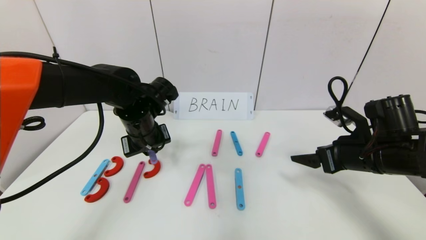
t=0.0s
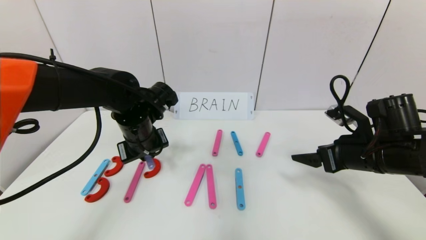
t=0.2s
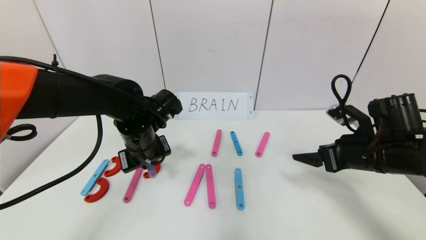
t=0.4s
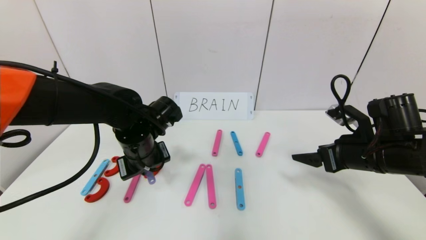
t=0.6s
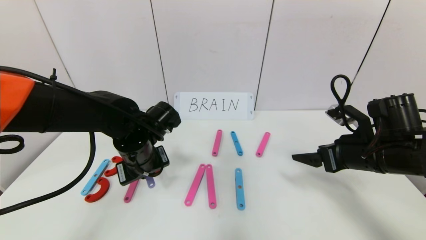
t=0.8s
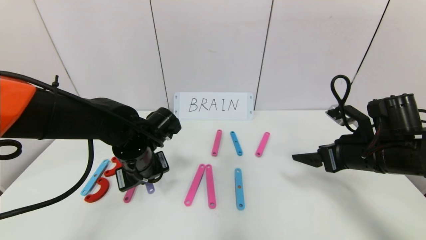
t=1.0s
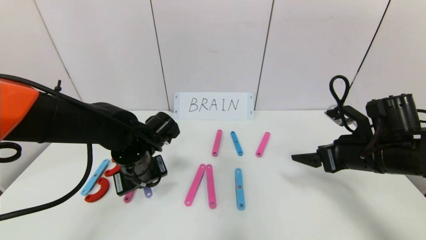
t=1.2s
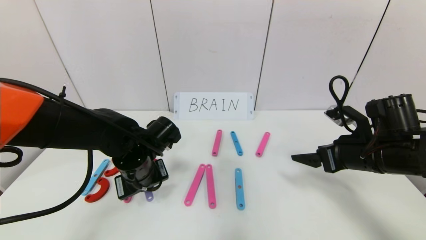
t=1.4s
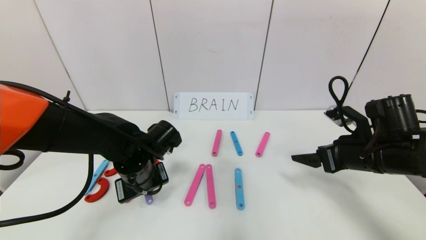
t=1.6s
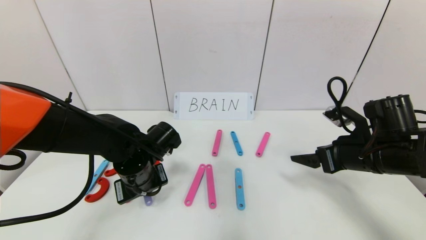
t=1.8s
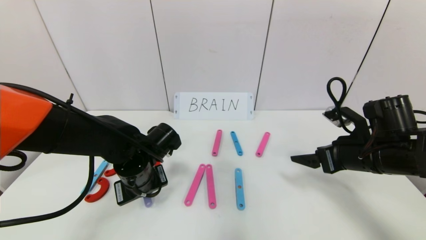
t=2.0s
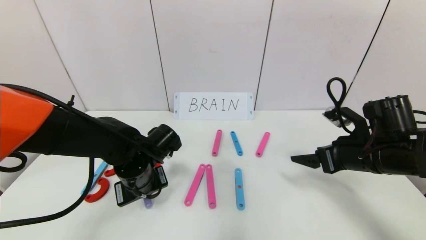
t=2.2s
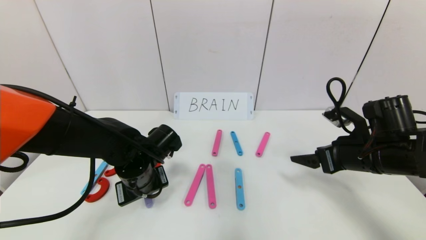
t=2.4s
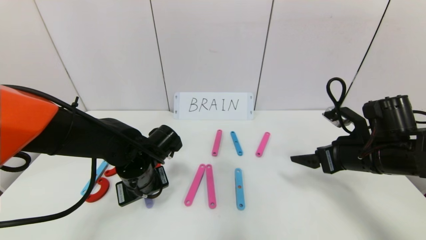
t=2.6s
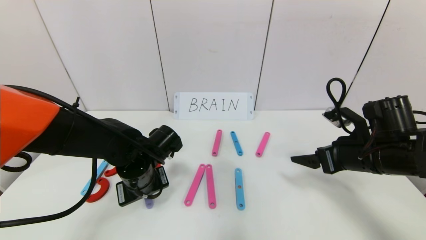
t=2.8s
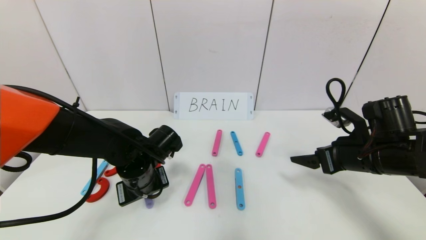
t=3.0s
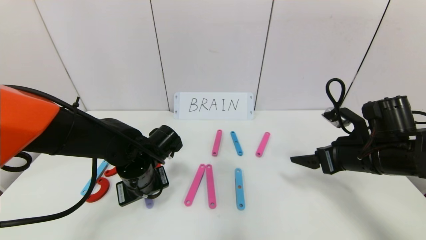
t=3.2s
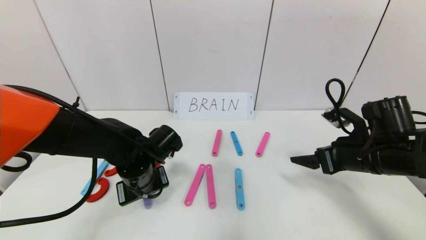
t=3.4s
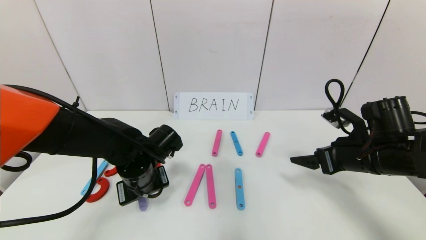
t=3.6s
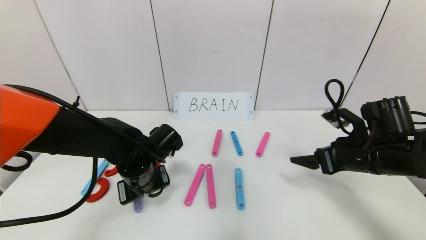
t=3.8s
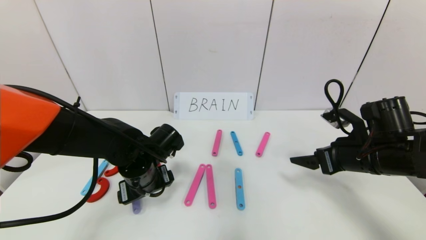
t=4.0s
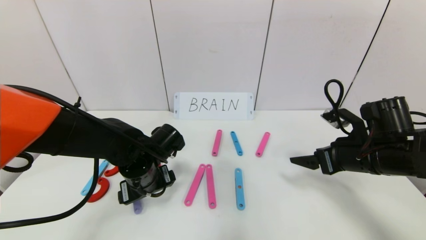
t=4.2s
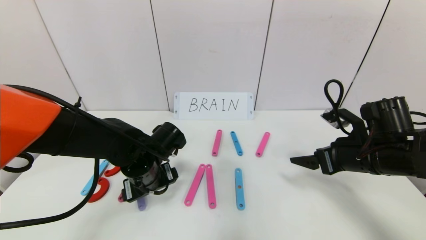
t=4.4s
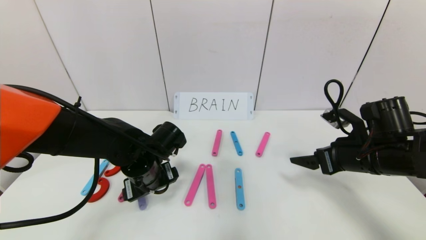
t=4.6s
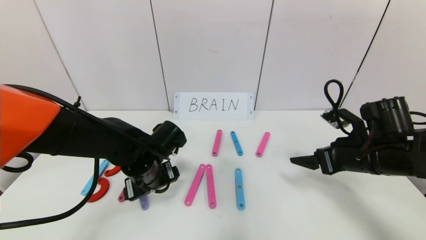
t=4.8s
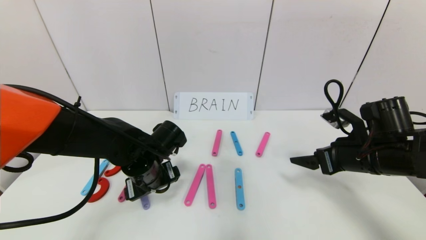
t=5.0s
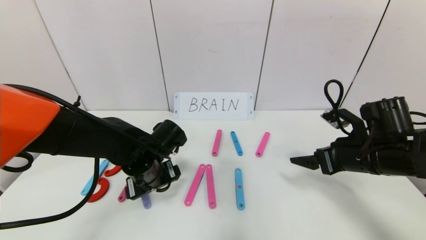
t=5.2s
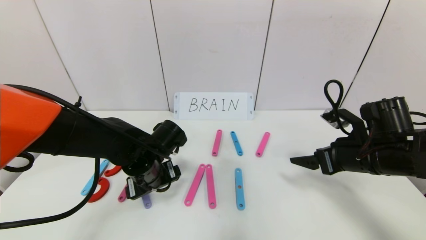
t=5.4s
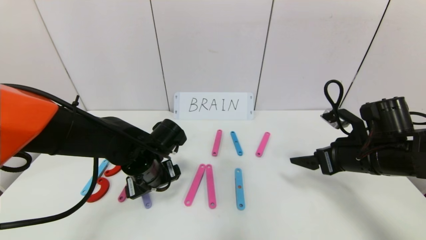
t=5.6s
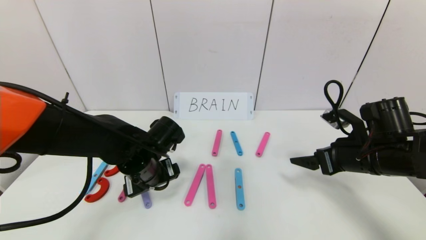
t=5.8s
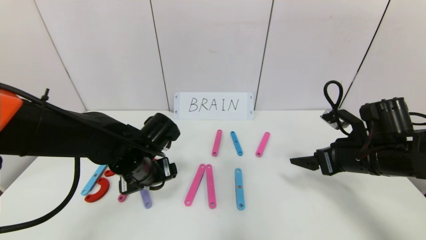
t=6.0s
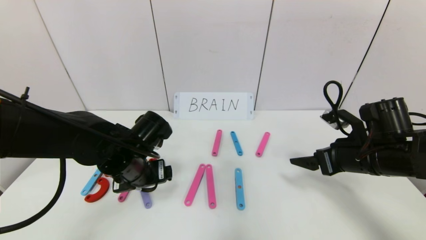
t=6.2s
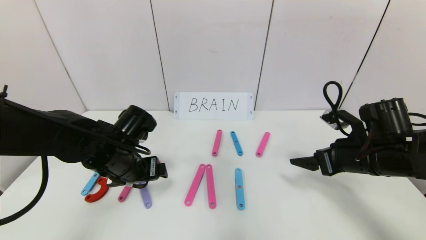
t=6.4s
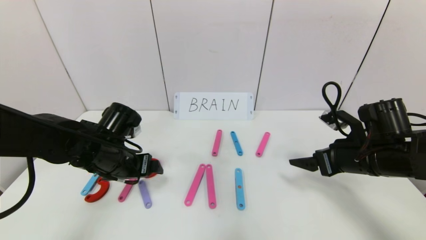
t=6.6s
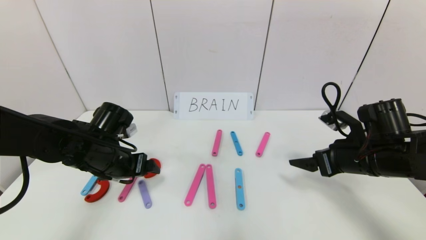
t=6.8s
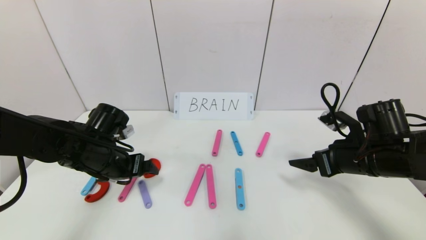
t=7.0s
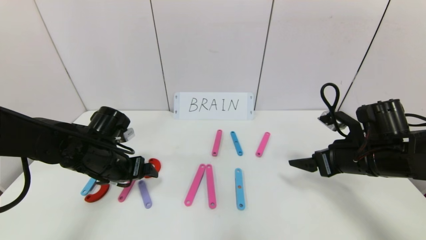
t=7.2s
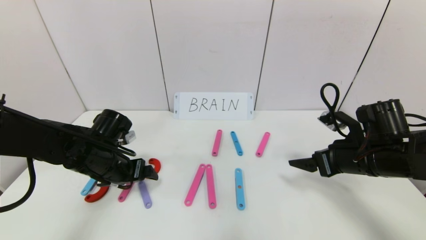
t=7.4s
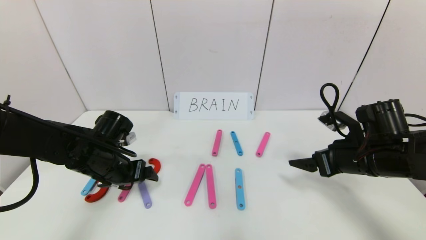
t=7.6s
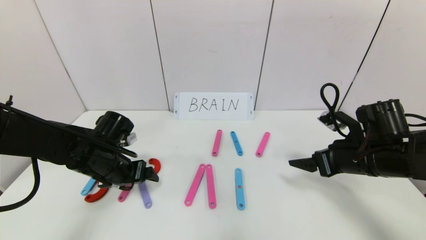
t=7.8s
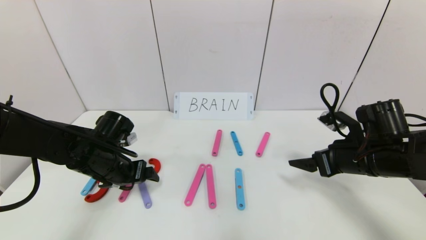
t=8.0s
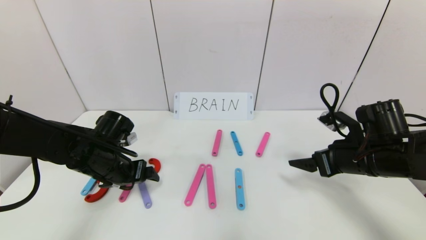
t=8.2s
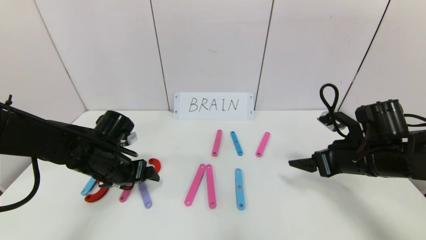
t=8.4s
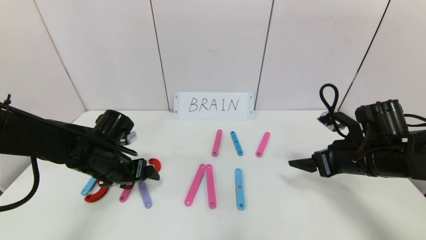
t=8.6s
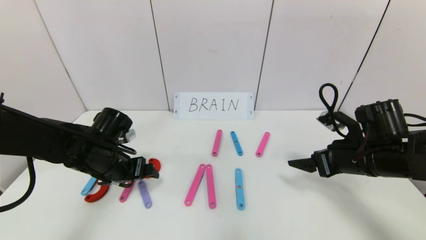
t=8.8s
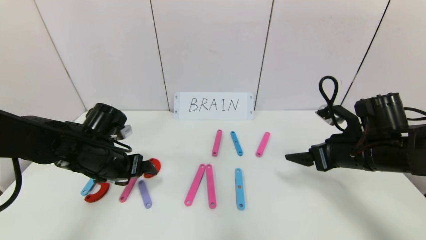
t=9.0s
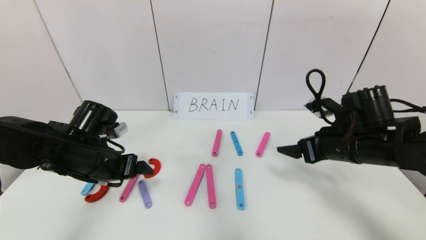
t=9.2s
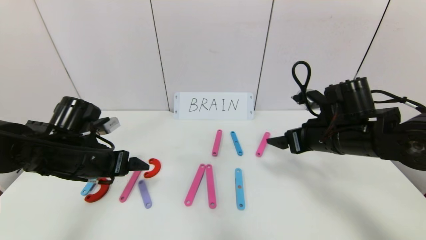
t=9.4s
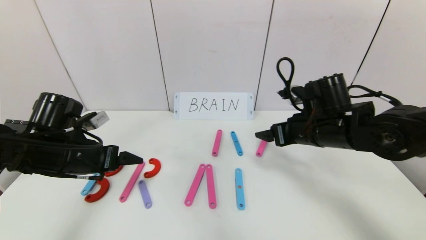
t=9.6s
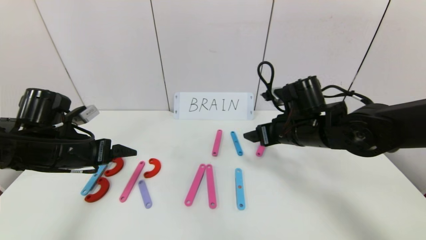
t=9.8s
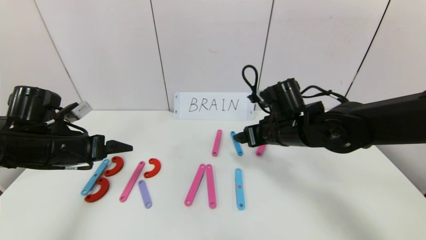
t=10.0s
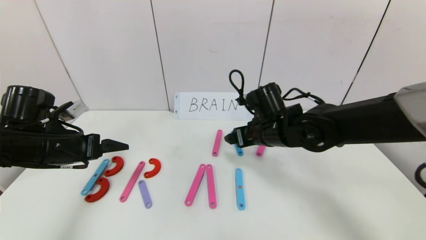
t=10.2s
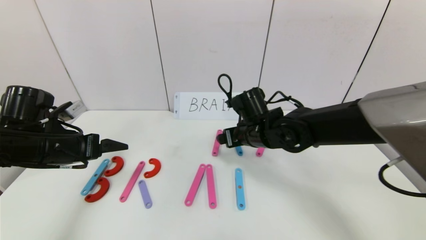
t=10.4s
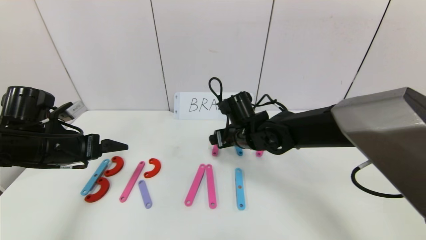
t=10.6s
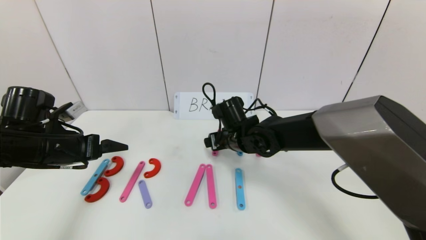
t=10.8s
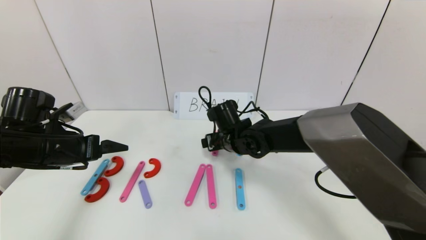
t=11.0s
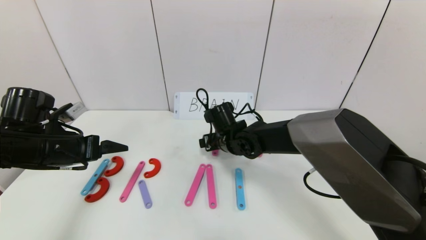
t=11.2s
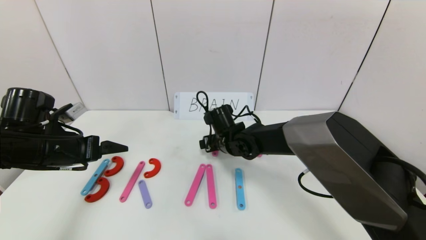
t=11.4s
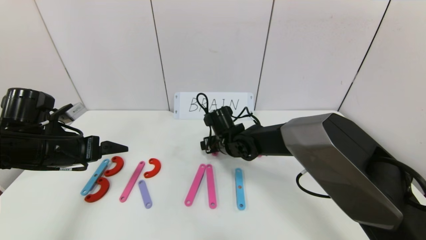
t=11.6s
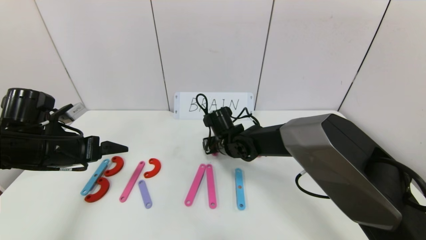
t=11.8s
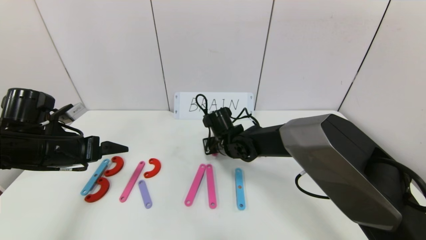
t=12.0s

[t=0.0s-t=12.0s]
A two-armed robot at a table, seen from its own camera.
Task of the whole recording: rearrange the word baai as brain.
Step, t=0.0s to t=9.0s: Place the character R between first character B and third character A.
t=0.0s to t=1.6s: The left gripper moves downward and backward, about 10 cm.
t=1.6s to t=3.0s: Both grippers stay about where they are.
t=3.0s to t=4.4s: The left gripper opens its fingers.
t=4.4s to t=6.0s: The grippers stay close to where they were, moving slightly.
t=6.0s to t=7.6s: The left gripper moves to the left, some 10 cm.
t=7.6s to t=9.0s: The grippers move only a little.
t=9.0s to t=10.4s: The right gripper is displaced to the left and forward by approximately 20 cm. Meanwhile the left gripper is displaced to the left by about 10 cm.
t=10.4s to t=12.0s: The right gripper travels downward and to the left by some 10 cm, and closes up.

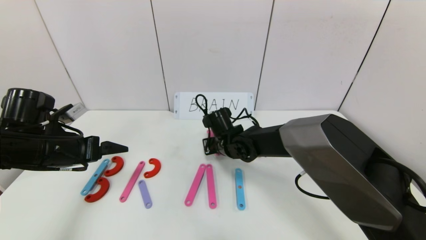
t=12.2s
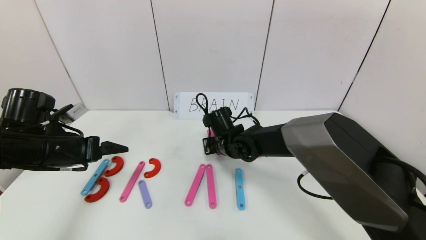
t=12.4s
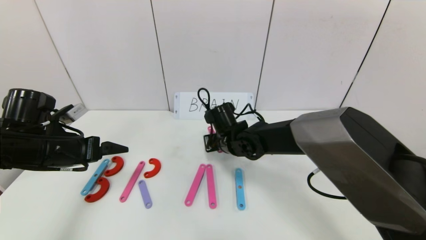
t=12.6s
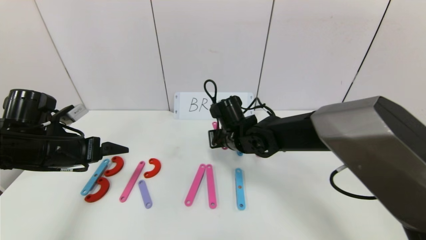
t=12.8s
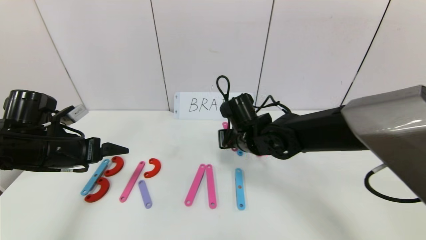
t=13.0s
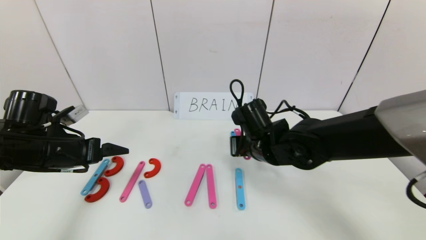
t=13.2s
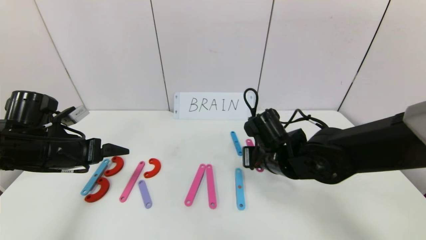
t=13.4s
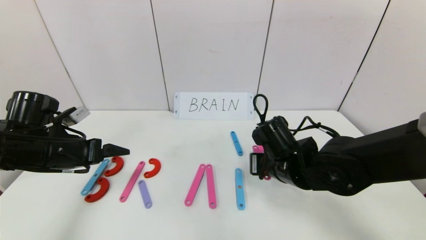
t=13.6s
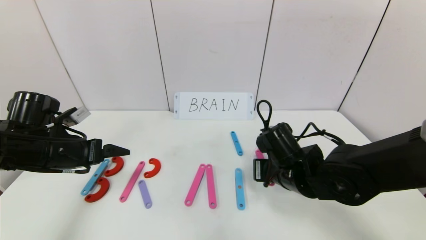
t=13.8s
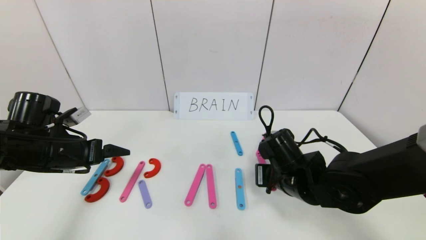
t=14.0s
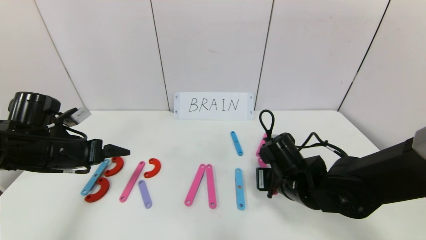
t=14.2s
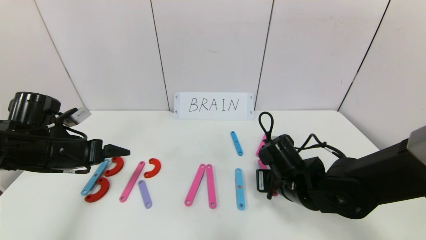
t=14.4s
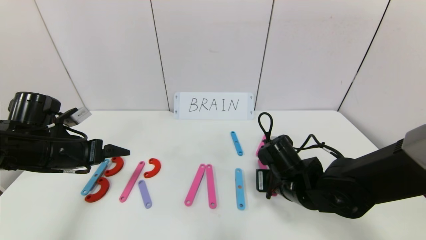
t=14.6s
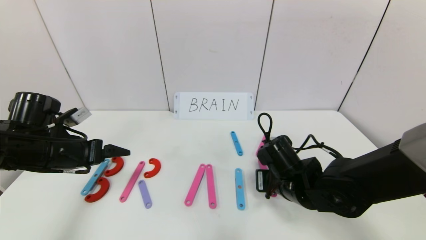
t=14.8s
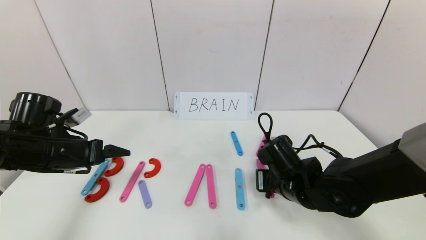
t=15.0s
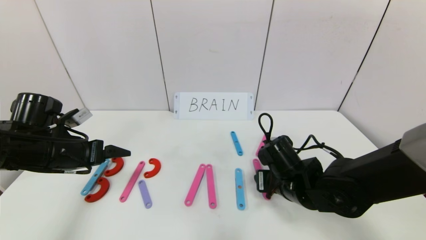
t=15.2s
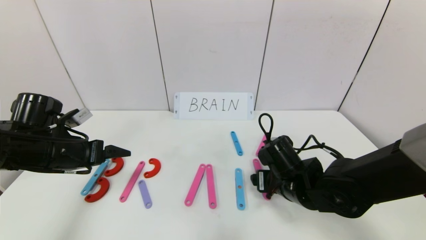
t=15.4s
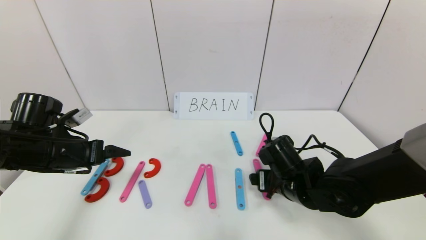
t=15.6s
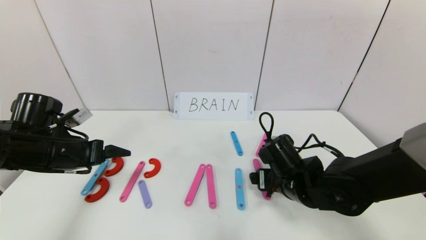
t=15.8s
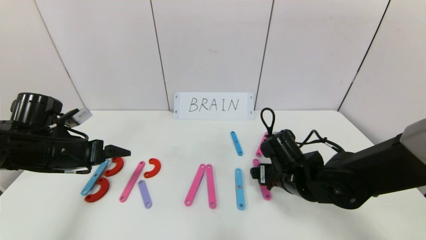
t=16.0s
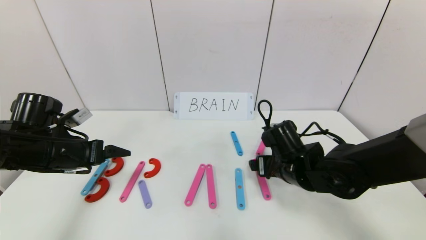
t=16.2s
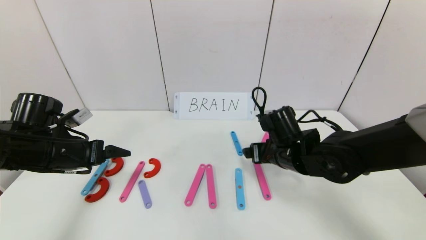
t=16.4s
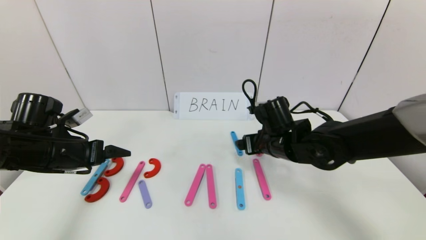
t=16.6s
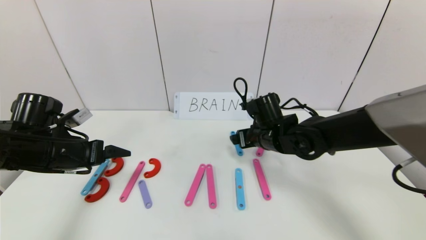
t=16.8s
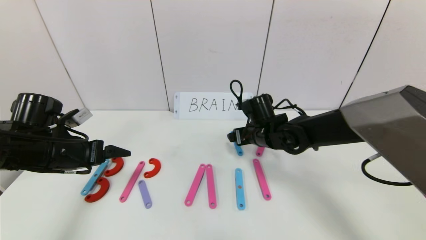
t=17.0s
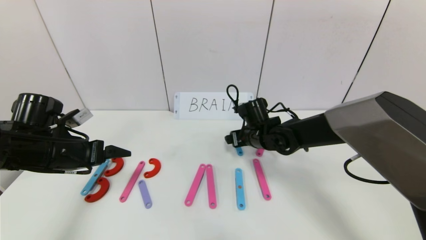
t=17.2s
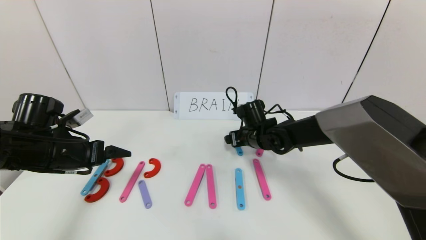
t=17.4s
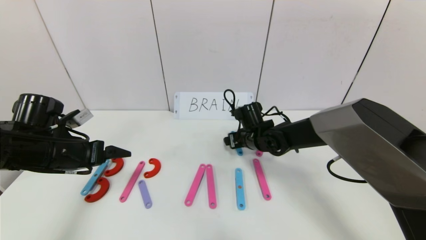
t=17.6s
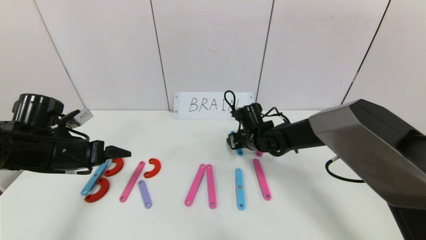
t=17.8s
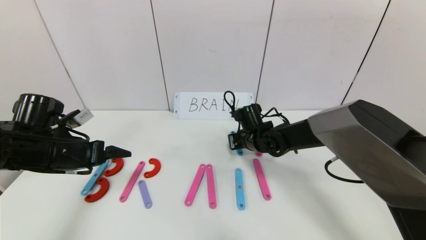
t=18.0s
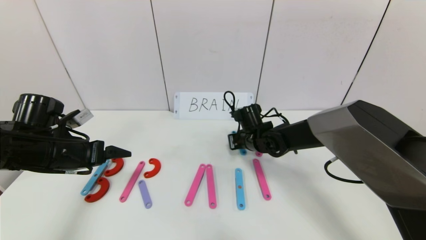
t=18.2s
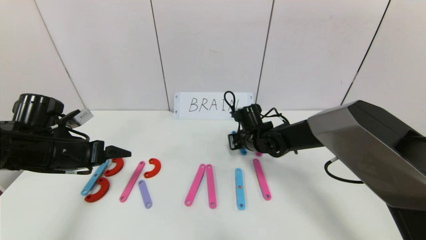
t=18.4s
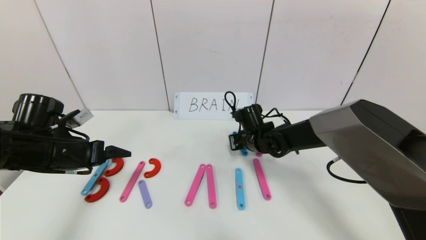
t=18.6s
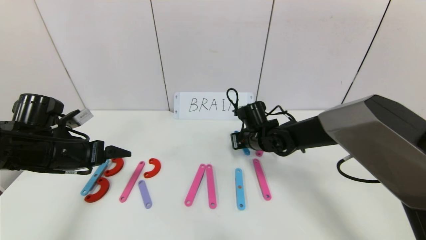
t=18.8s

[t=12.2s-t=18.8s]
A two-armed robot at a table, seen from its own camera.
Task of the whole recording: rearrange the word baai as brain.
t=12.2s to t=13.8s: The right gripper shifts about 15 cm backward and to the right.
t=13.8s to t=15.4s: The right gripper opens its fingers.
t=15.4s to t=17.2s: The right gripper travels forward by some 15 cm.
t=17.2s to t=18.8s: The right gripper closes its fingers.
